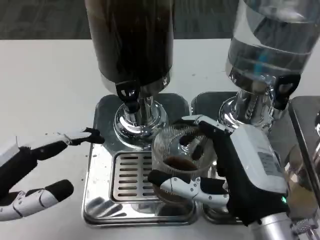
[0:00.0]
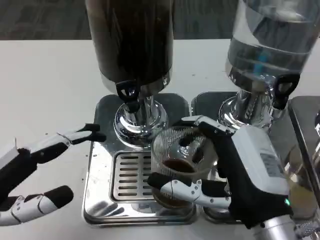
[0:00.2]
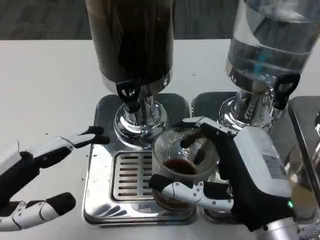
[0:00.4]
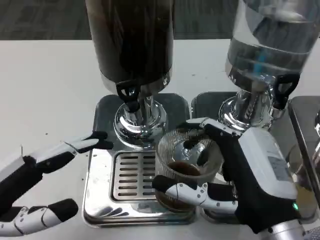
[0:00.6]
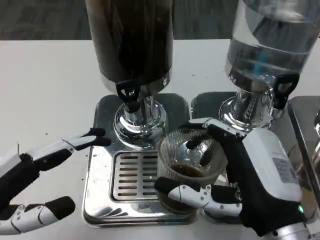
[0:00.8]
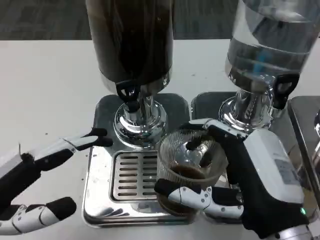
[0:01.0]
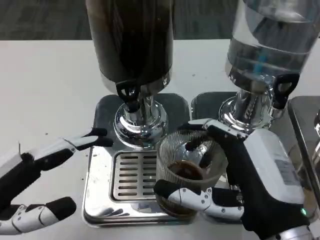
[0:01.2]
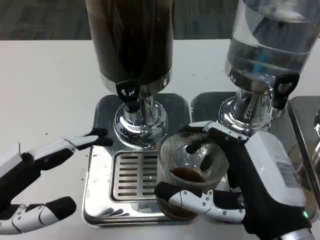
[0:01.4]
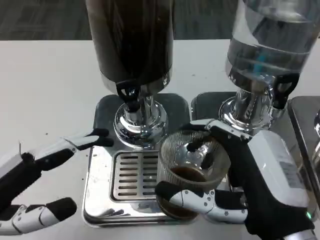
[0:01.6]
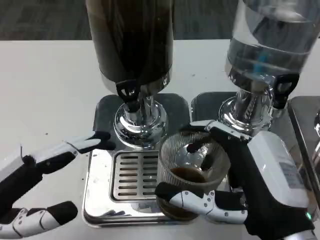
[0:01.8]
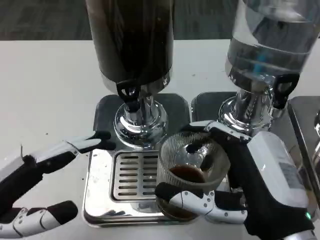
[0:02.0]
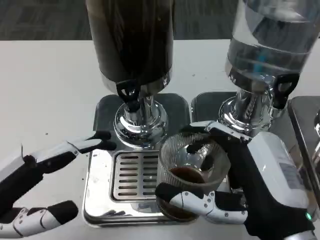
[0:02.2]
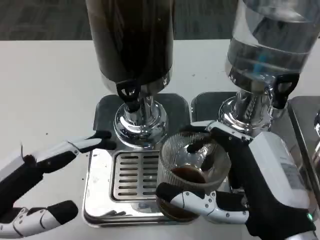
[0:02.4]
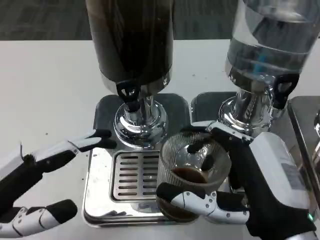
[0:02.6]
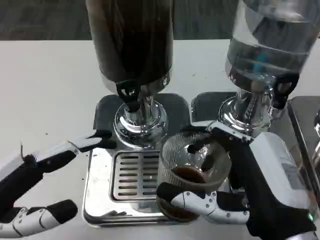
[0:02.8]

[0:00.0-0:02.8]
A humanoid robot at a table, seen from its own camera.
Task of the whole recording: Grasp the cup under the faucet to collect the drink, then remove the cup.
0:01.4 to 0:02.8: Both hands stay about where they are.

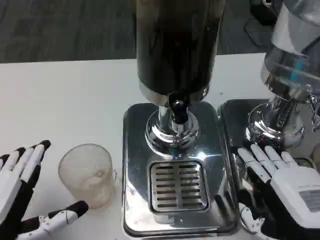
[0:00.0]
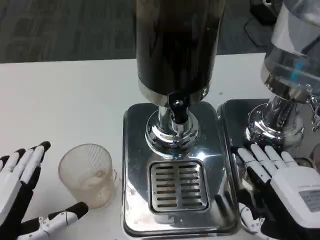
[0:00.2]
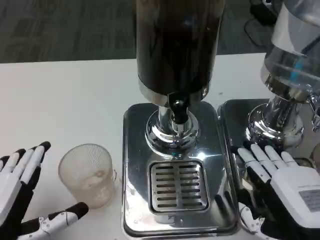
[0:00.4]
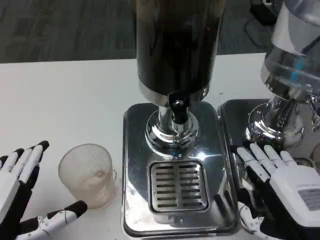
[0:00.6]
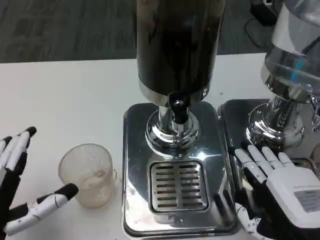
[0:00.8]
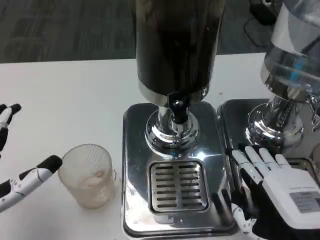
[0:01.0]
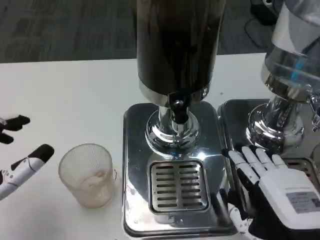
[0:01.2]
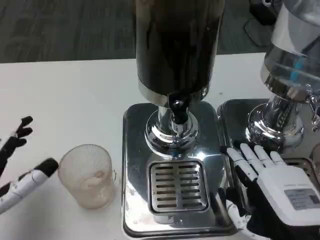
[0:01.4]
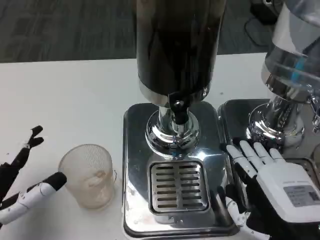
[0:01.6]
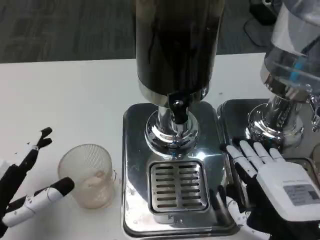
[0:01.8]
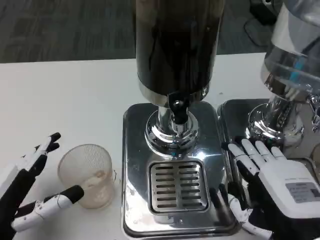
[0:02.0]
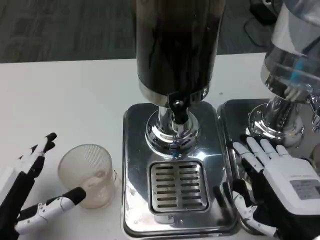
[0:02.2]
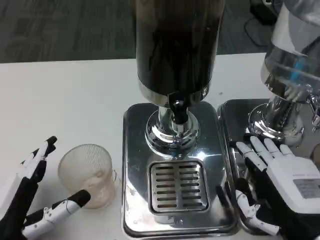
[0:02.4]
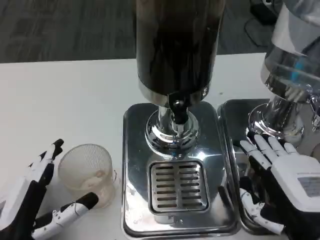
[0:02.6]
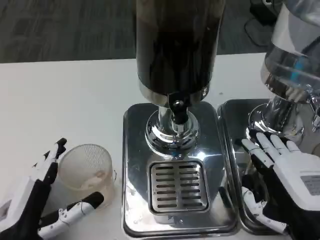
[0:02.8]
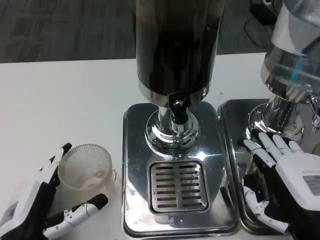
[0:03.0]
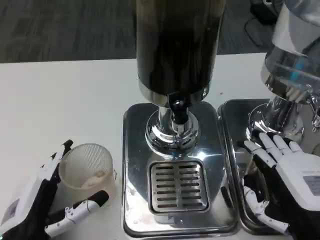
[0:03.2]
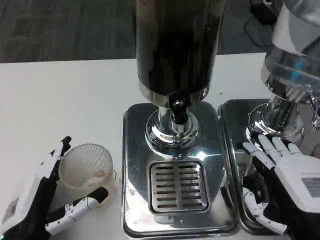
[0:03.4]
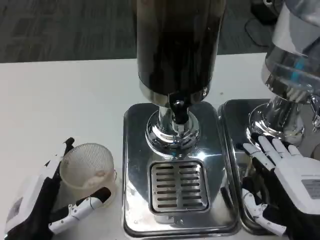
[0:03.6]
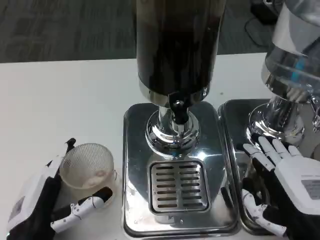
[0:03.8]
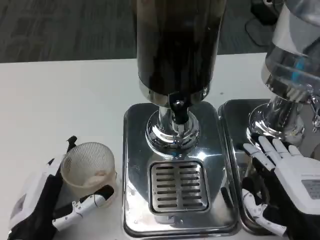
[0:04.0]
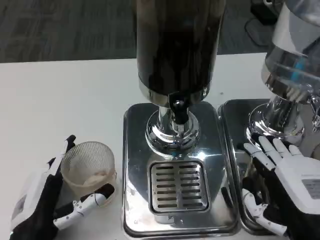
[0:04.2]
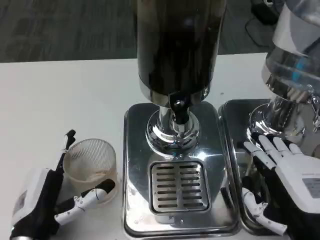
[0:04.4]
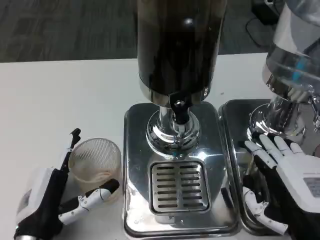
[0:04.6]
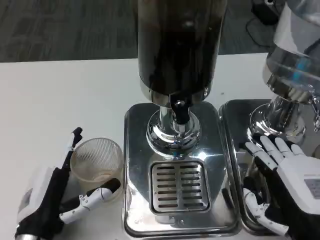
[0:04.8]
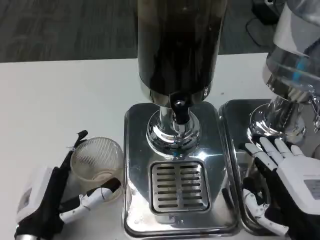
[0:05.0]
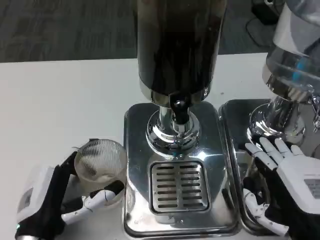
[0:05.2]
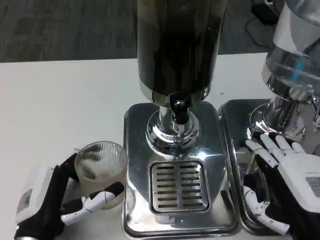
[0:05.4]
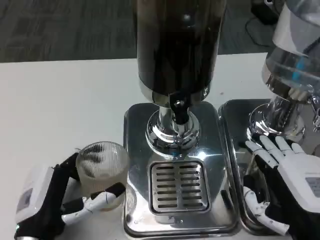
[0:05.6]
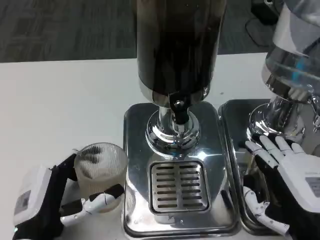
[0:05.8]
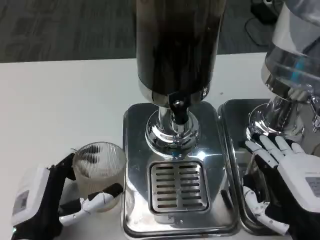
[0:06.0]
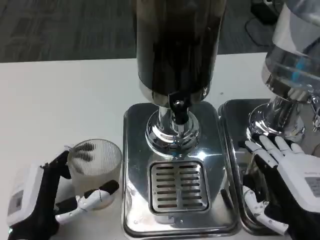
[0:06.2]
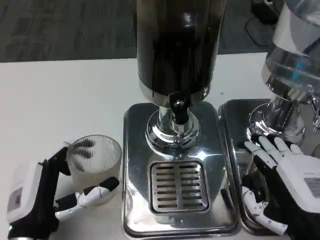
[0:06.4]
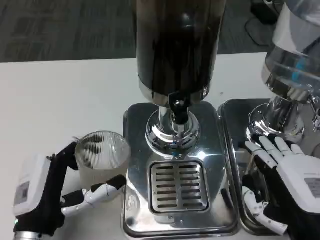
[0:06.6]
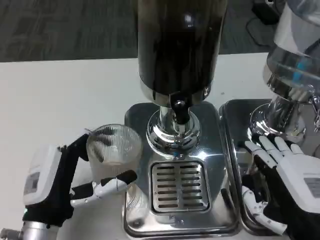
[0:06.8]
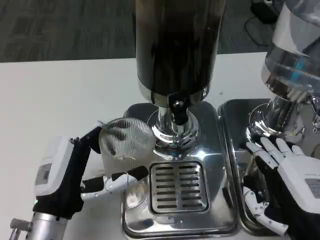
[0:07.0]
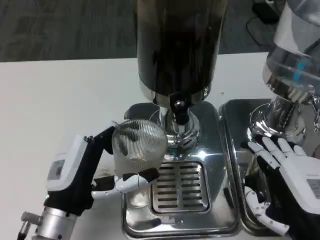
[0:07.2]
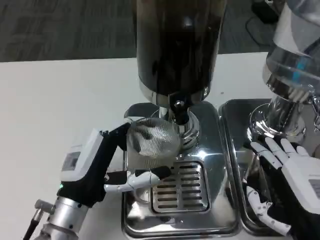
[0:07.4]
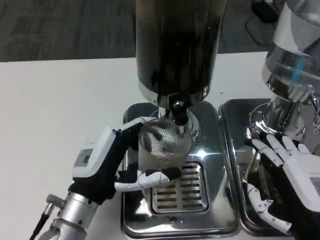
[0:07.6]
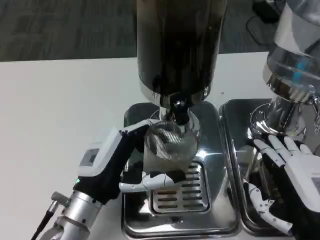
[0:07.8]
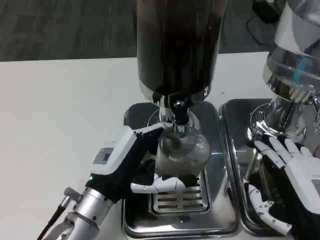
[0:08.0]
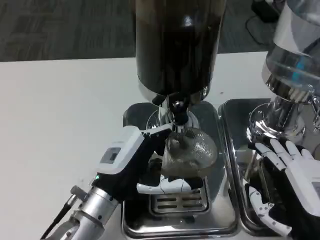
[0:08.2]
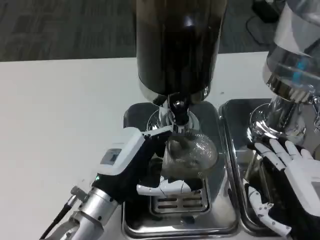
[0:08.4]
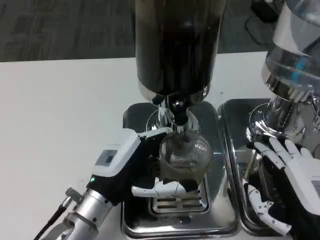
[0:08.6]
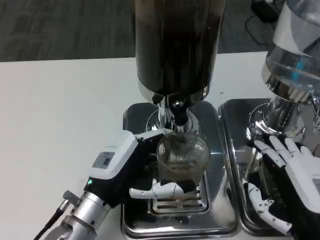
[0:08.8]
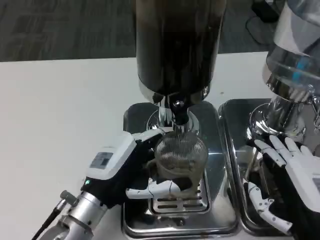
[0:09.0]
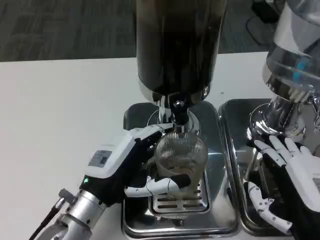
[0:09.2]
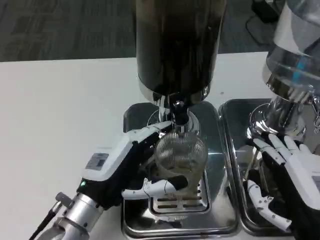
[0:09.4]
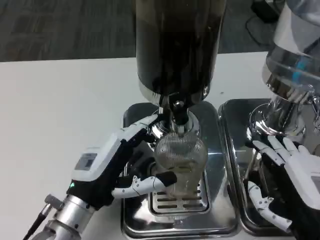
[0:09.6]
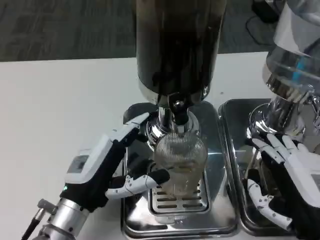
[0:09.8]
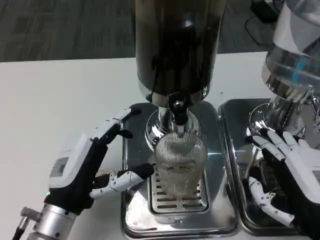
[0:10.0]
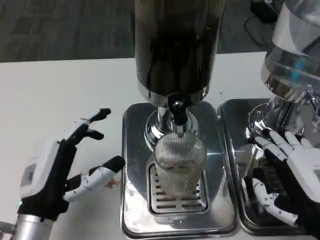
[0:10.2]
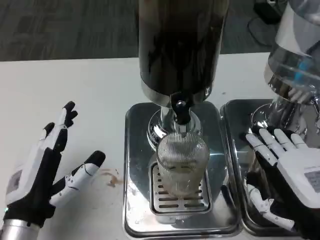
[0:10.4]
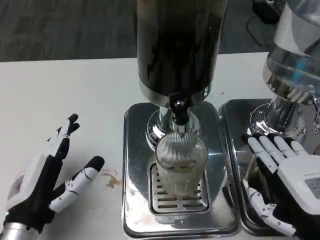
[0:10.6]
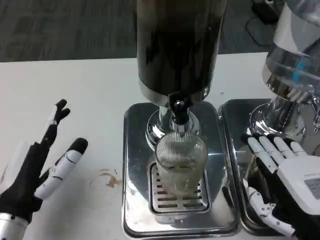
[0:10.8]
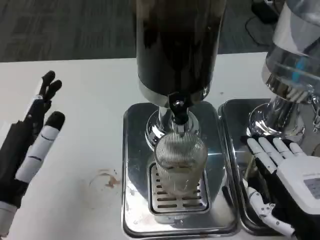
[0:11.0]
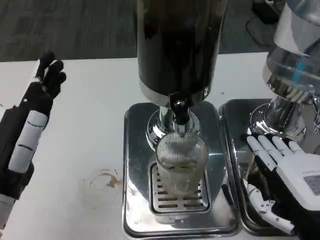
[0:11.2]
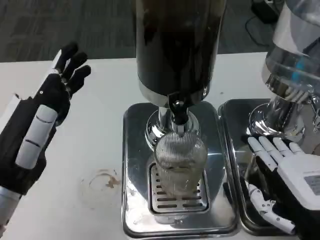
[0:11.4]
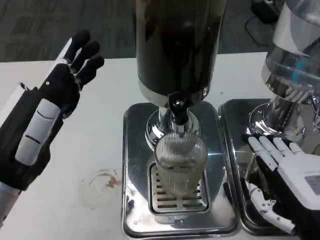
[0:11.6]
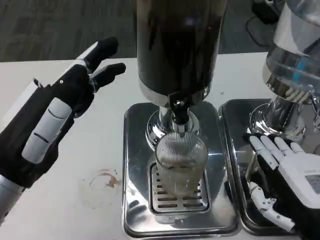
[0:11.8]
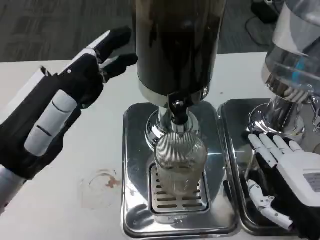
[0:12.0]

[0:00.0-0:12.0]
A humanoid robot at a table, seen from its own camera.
Task of the whole recording: Grasp the cup under the faucet to collect the drink, then remove the cup.
0:01.6 to 0:03.0: The left hand shifts approximately 5 cm downward.
0:03.0 to 0:06.0: The hands make only small movements.
0:06.0 to 0:07.6: The left hand moves forward, about 5 cm.
0:07.6 to 0:09.0: The hands stay close to where they were, moving slightly.
0:09.0 to 0:10.4: The left hand moves to the left and backward, some 10 cm.
0:10.4 to 0:12.0: The left hand shifts some 15 cm upward.

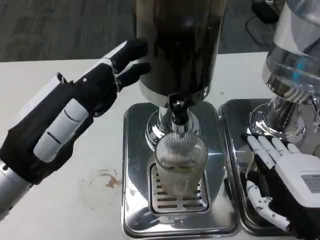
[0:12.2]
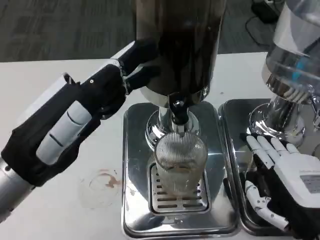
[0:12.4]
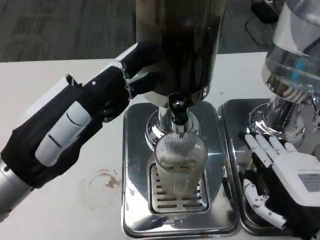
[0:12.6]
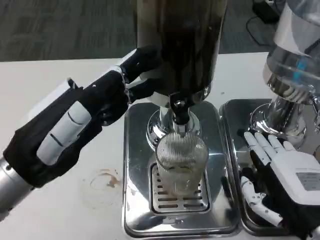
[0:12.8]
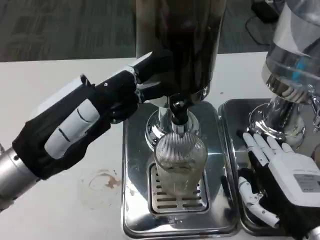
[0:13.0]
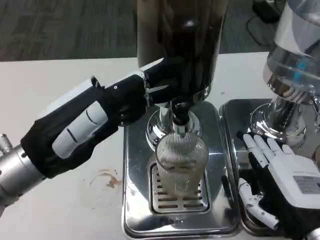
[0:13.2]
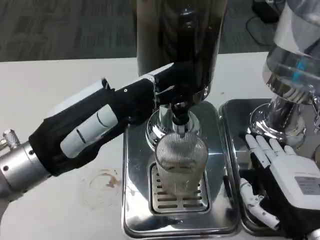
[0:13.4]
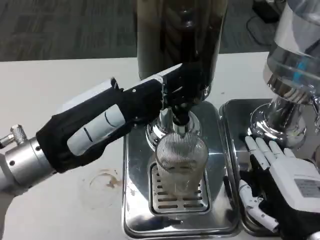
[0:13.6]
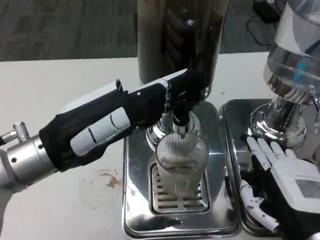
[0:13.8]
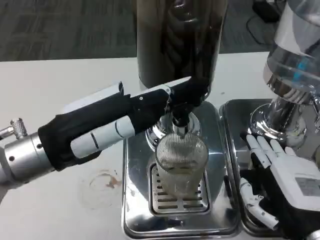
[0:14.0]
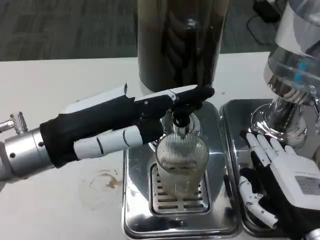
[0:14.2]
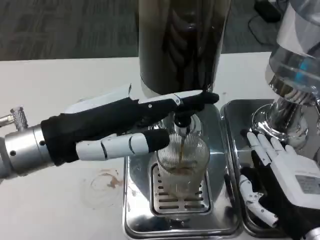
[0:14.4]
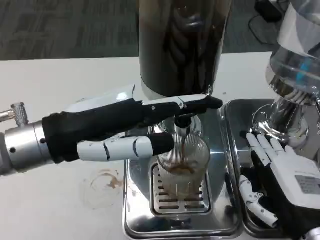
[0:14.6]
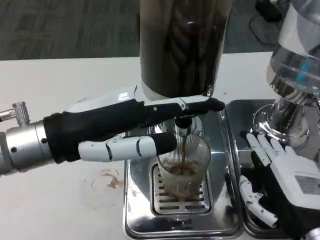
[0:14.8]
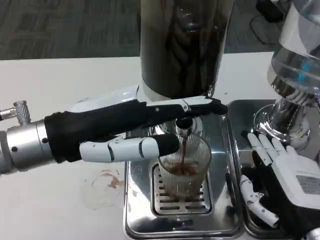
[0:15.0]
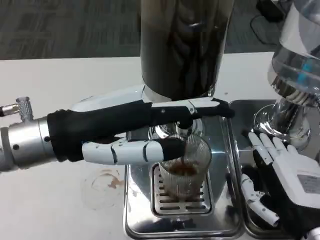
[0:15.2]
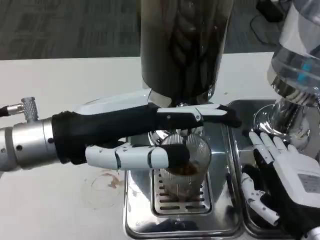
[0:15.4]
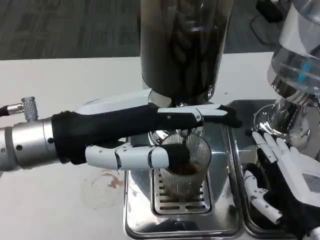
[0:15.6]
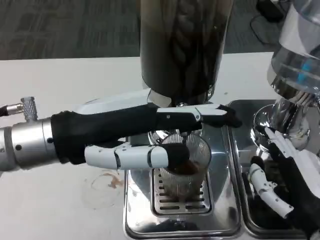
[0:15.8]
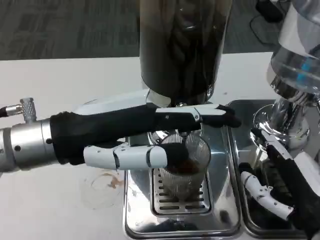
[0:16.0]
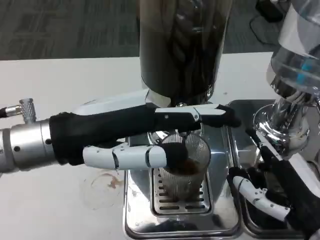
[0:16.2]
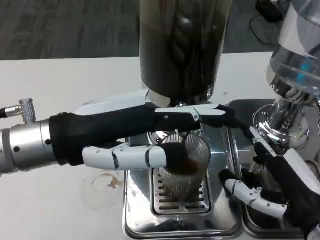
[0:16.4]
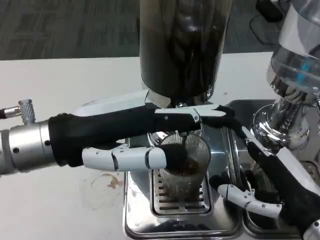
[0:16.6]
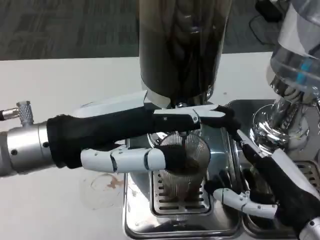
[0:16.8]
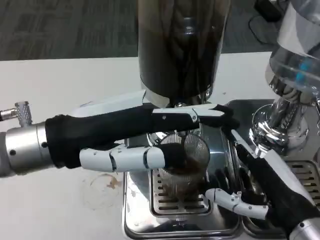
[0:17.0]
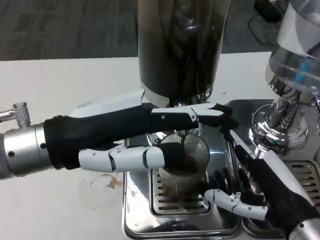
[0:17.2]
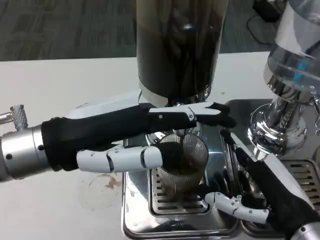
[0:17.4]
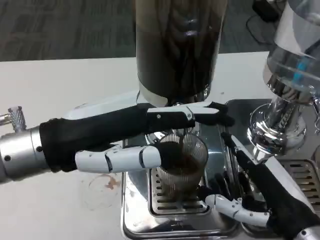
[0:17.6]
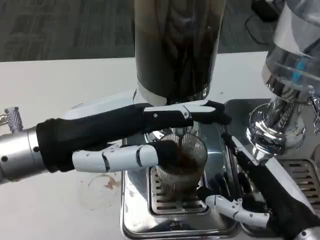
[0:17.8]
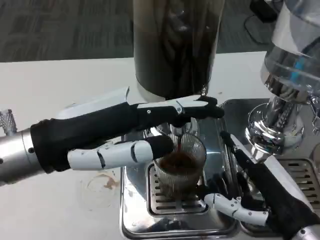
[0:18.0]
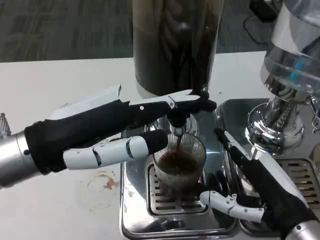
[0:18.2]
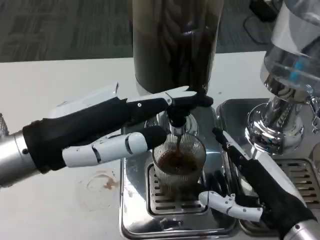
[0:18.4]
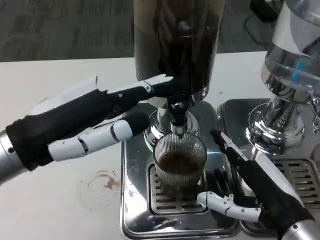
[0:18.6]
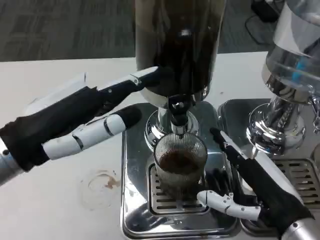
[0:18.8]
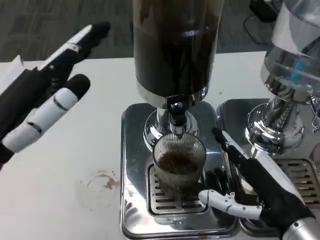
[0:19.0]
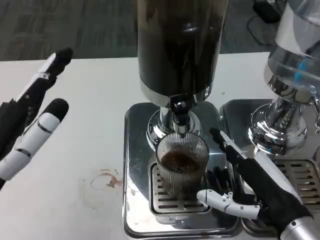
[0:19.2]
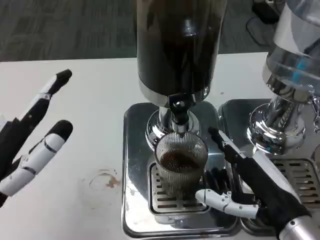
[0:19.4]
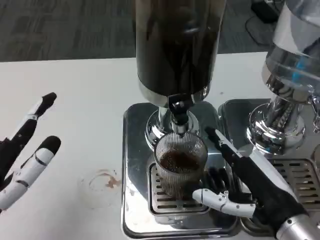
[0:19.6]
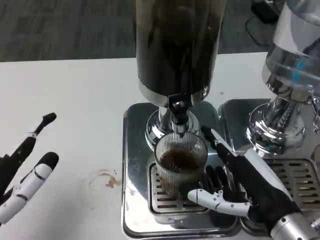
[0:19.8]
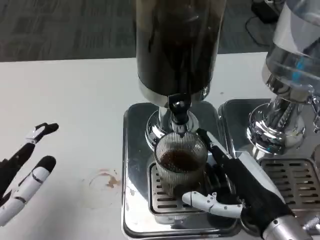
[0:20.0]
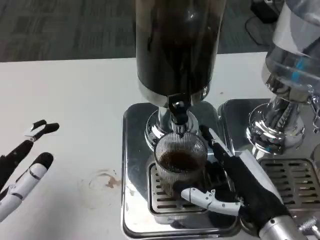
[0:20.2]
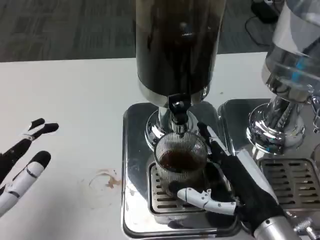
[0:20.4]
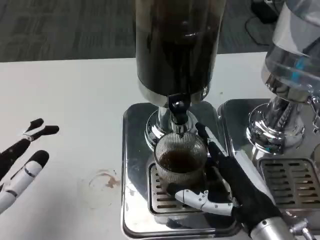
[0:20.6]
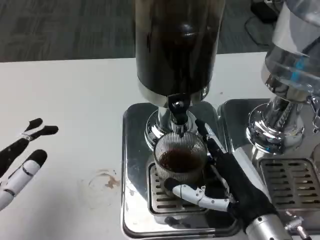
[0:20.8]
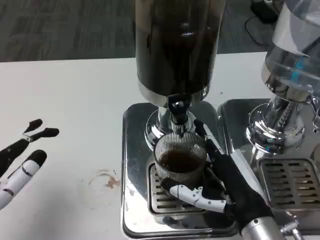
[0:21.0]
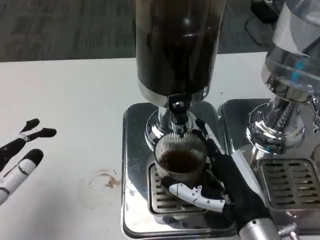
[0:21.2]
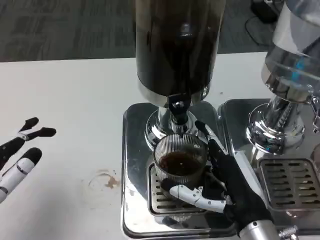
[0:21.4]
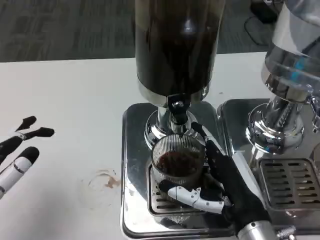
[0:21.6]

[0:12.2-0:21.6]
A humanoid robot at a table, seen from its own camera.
Task of the whole recording: Grasp the cup under the faucet to collect the drink, then remove the cup.
0:18.4 to 0:20.0: The left hand travels downward, backward and to the left by about 15 cm.
0:20.0 to 0:21.6: The hands stay close to where they were, moving slightly.
